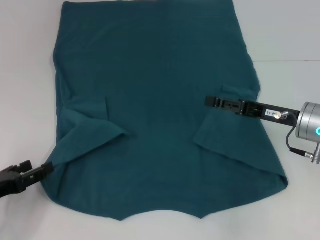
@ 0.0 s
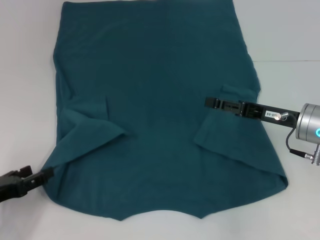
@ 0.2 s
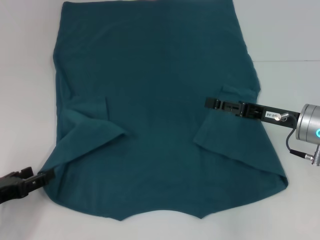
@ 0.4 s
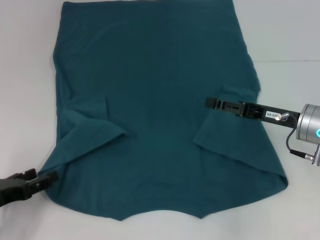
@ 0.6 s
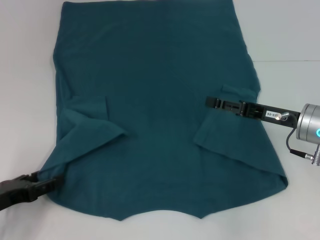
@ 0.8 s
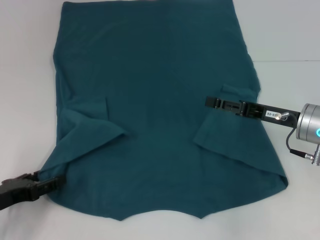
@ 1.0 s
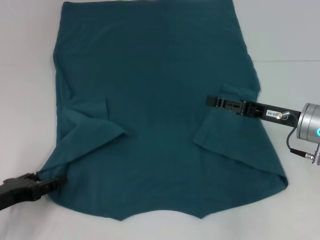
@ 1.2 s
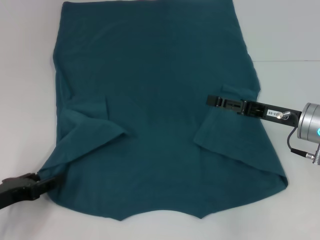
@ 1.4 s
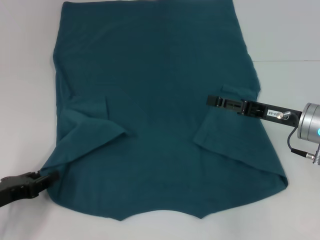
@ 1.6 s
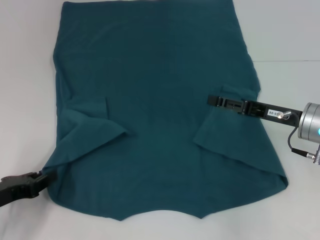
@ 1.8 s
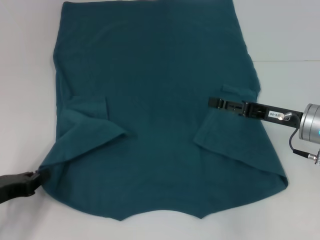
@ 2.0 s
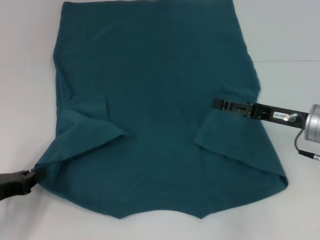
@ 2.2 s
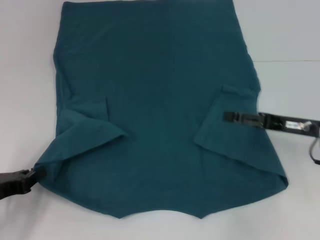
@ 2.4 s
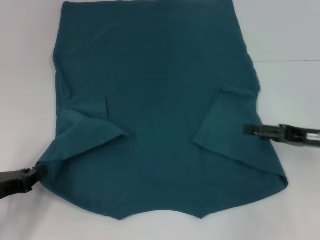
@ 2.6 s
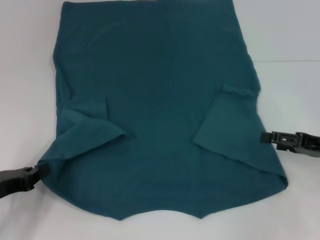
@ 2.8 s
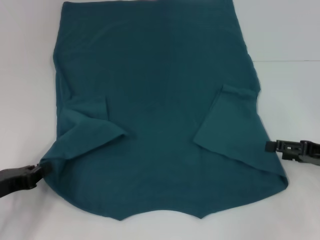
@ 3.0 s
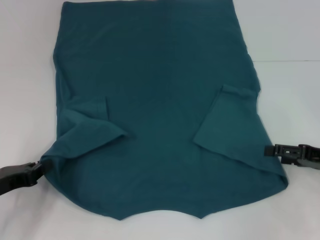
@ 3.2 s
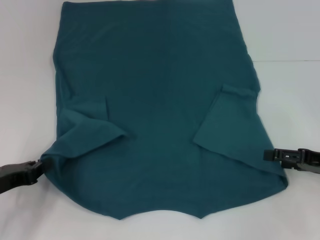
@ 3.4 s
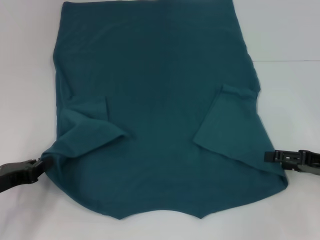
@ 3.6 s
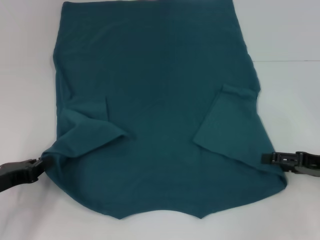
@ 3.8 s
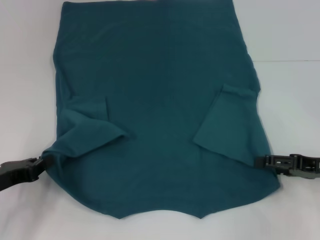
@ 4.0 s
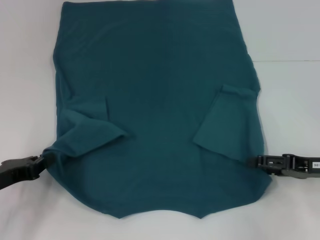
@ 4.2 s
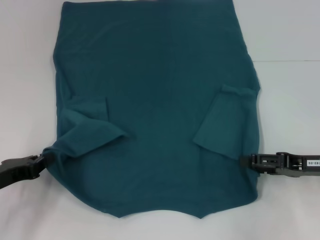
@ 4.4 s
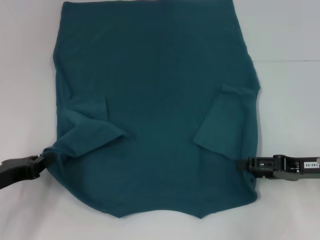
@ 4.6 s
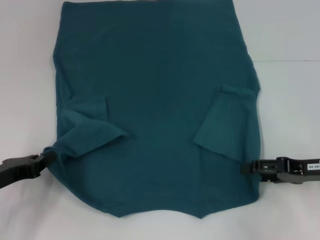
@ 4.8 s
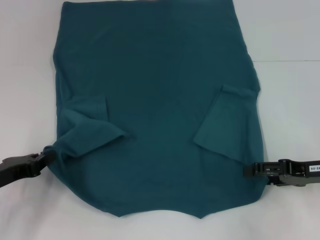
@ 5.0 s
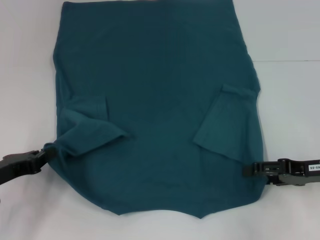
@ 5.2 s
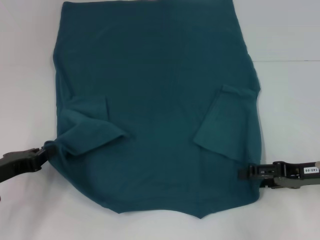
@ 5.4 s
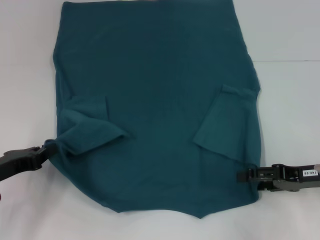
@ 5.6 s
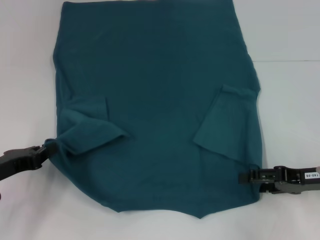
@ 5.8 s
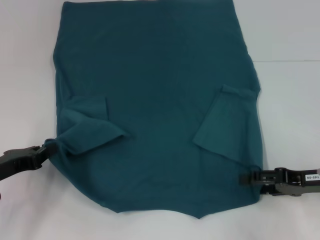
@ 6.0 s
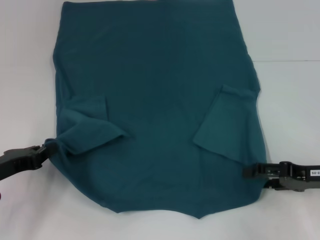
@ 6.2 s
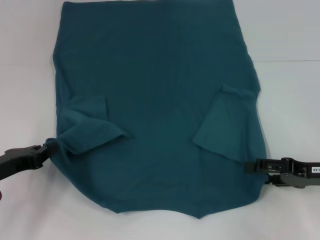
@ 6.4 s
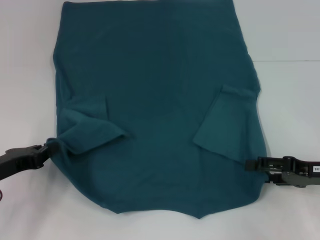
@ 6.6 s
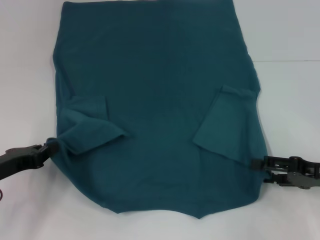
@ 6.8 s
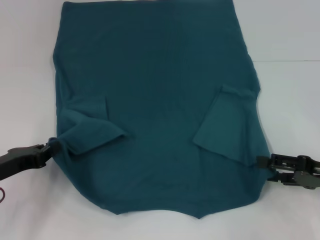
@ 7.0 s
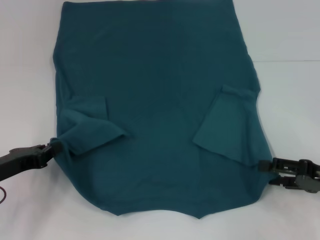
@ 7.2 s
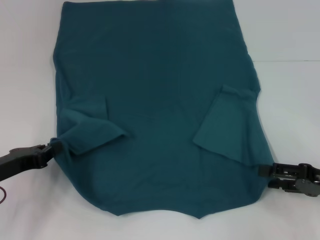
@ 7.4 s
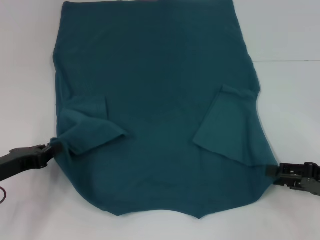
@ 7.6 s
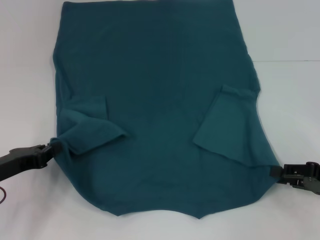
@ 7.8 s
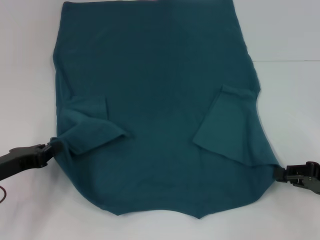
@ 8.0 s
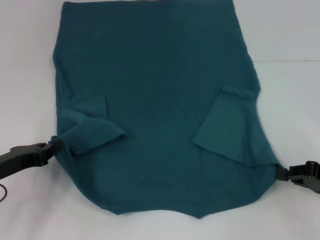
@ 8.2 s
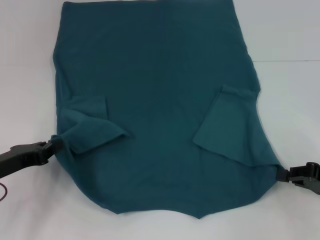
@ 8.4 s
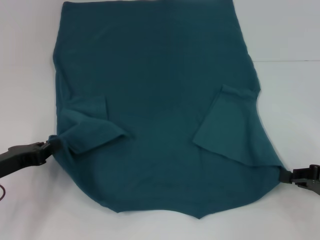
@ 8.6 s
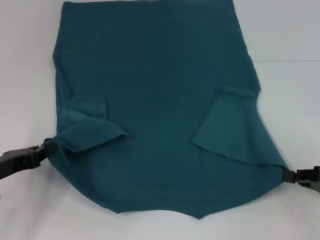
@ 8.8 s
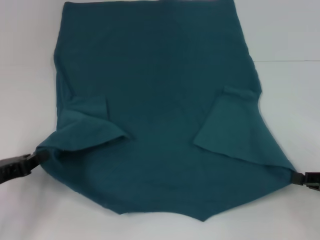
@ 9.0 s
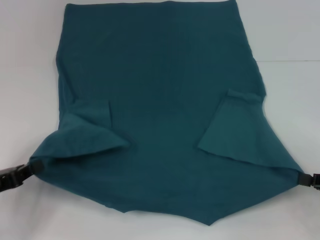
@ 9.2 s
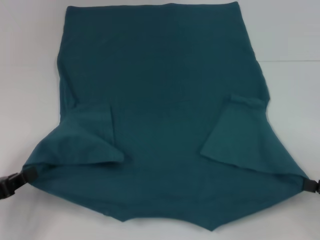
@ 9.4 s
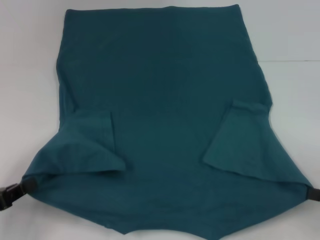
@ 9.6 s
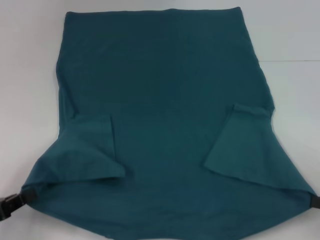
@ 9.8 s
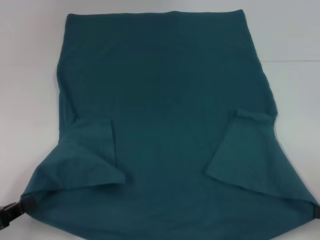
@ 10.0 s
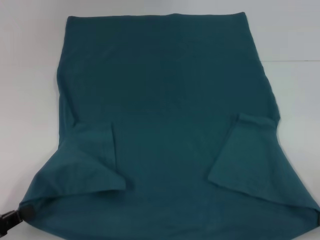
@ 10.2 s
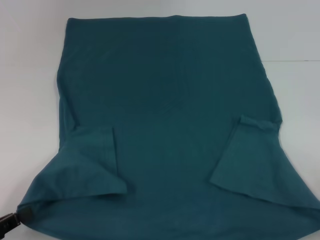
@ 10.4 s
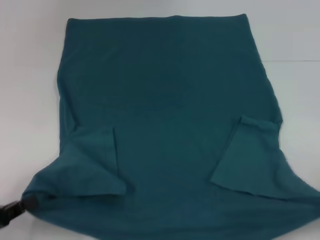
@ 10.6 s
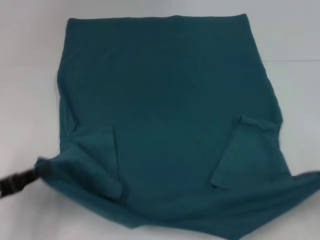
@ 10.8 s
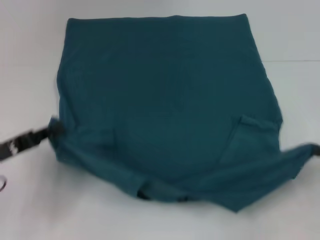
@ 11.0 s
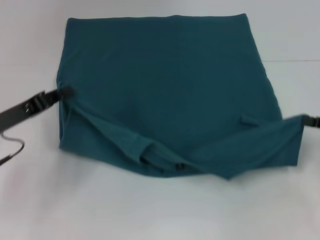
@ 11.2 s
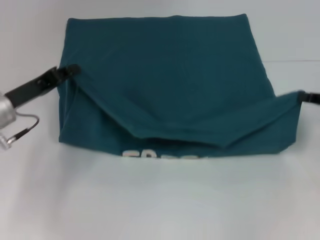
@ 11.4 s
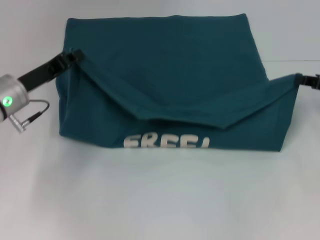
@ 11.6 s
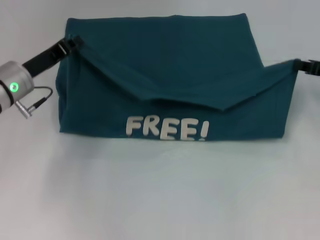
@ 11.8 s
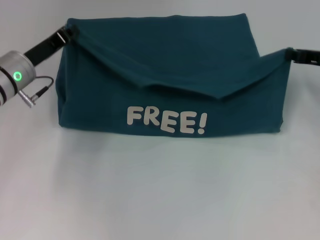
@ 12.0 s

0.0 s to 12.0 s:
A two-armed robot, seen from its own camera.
Step, 0.0 to 2.0 s: Grab the bottom left corner with your left hand.
Step, 2.2 to 8.2 s: Grab the bottom right corner with your right hand.
0.0 to 1.6 s: The grippers move only a little.
1.6 to 3.0 s: The right gripper is displaced to the right by roughly 10 cm. Meanwhile the left gripper closes up.
3.0 to 7.6 s: The grippers move only a little.
7.6 to 9.0 s: The right gripper closes up.
9.0 to 10.4 s: Both grippers travel together backward, some 10 cm.
10.4 to 12.0 s: The two grippers go roughly 25 cm forward.

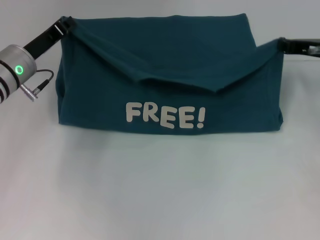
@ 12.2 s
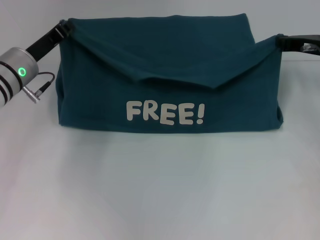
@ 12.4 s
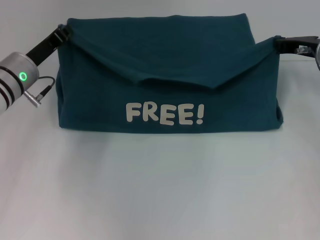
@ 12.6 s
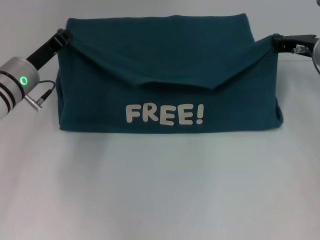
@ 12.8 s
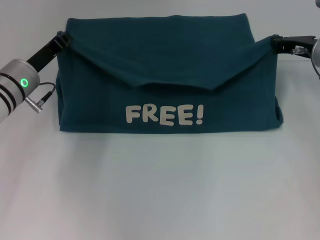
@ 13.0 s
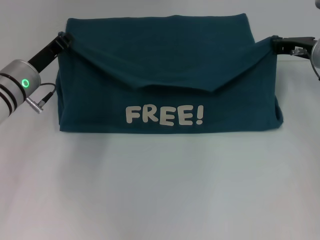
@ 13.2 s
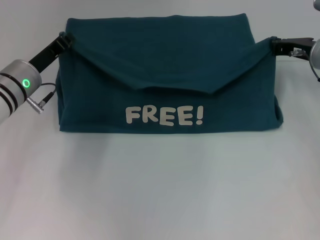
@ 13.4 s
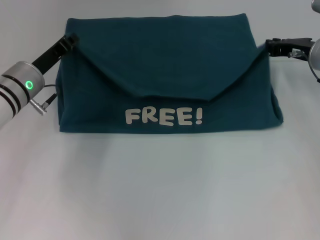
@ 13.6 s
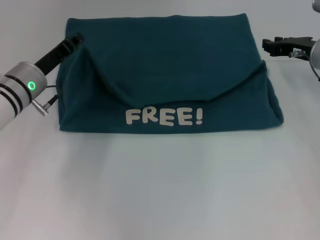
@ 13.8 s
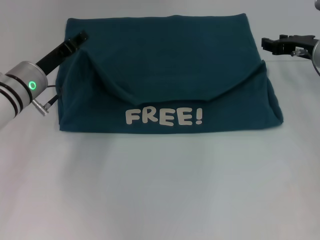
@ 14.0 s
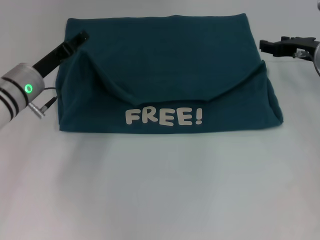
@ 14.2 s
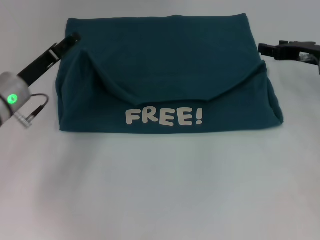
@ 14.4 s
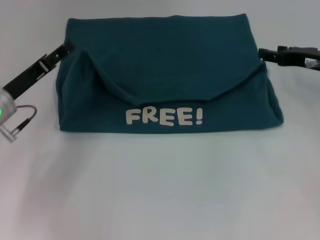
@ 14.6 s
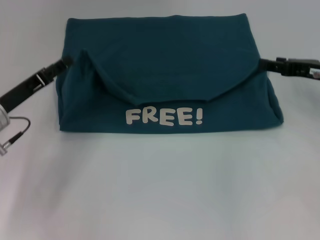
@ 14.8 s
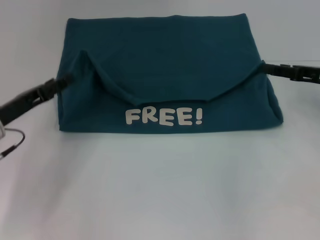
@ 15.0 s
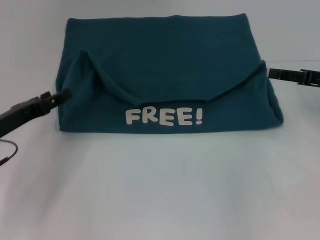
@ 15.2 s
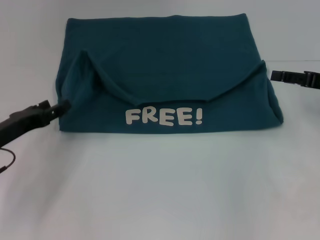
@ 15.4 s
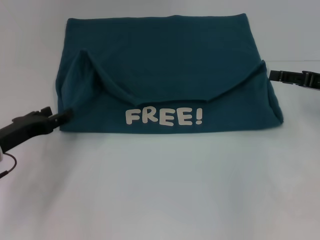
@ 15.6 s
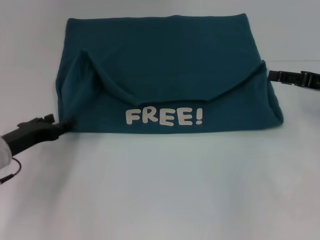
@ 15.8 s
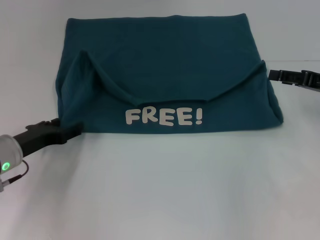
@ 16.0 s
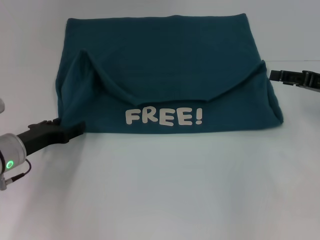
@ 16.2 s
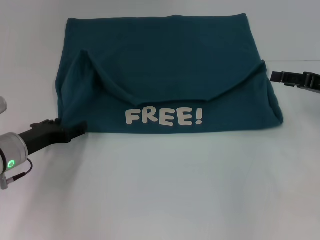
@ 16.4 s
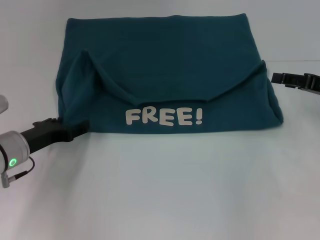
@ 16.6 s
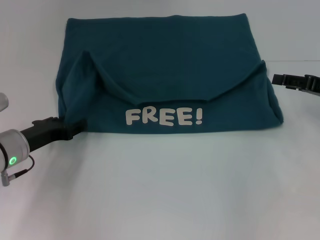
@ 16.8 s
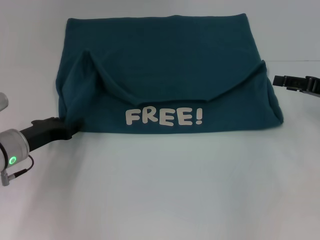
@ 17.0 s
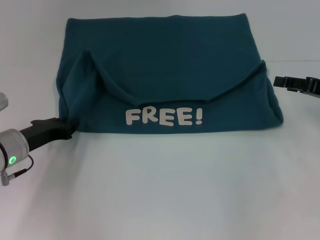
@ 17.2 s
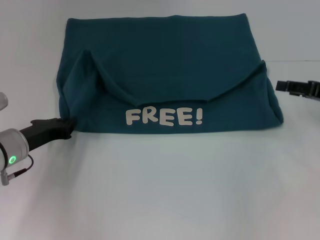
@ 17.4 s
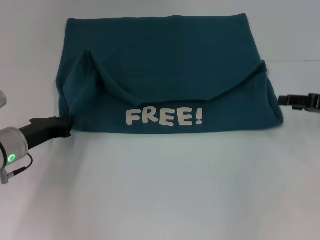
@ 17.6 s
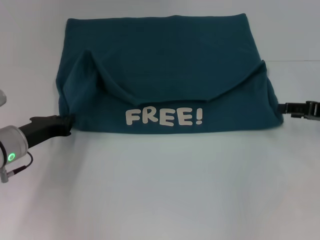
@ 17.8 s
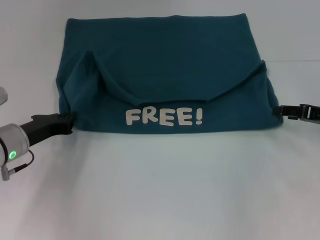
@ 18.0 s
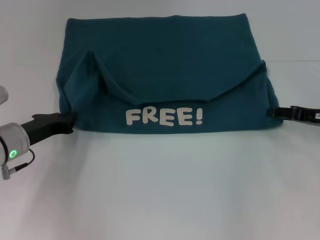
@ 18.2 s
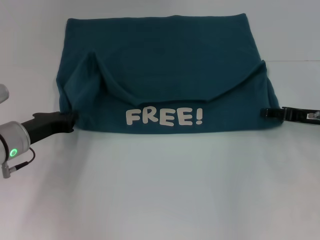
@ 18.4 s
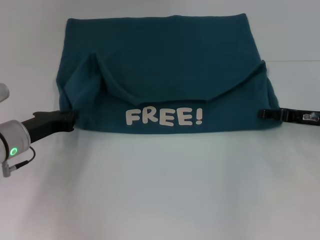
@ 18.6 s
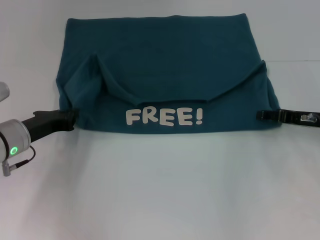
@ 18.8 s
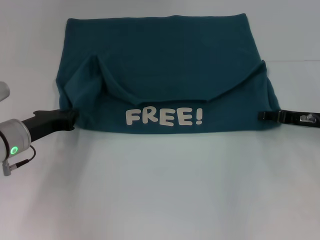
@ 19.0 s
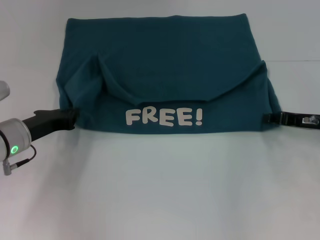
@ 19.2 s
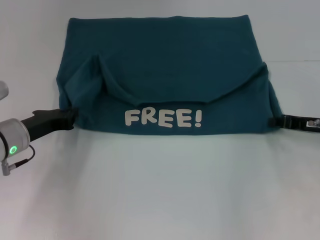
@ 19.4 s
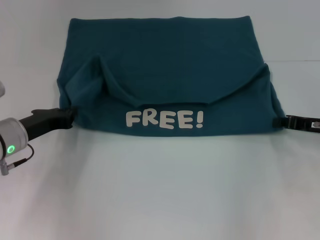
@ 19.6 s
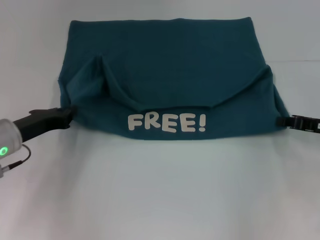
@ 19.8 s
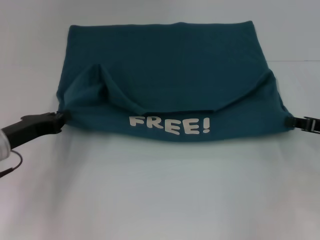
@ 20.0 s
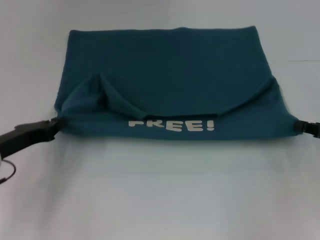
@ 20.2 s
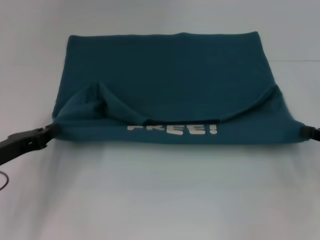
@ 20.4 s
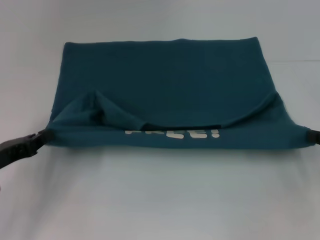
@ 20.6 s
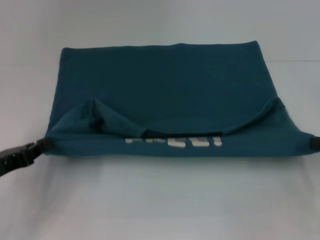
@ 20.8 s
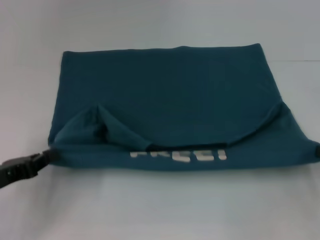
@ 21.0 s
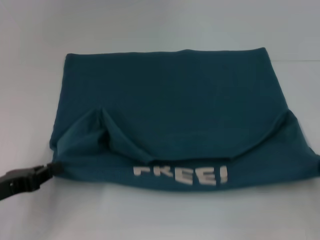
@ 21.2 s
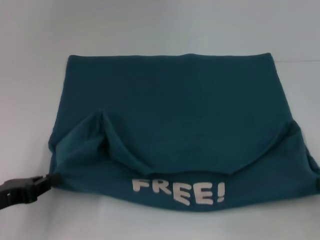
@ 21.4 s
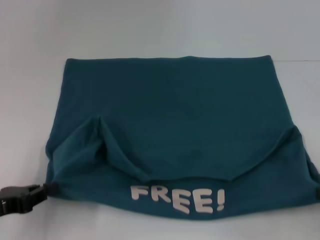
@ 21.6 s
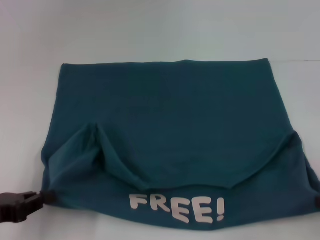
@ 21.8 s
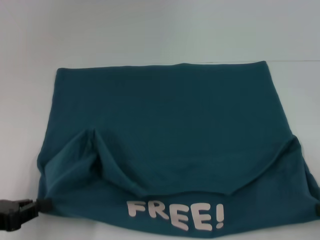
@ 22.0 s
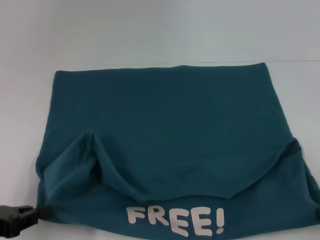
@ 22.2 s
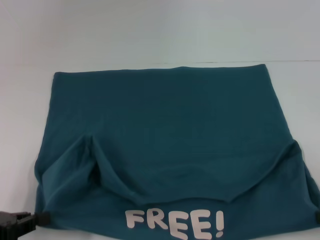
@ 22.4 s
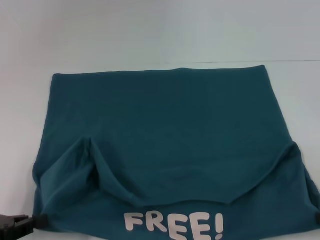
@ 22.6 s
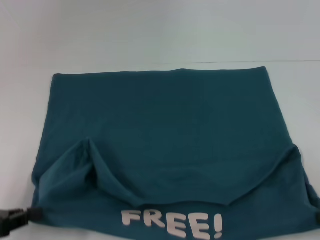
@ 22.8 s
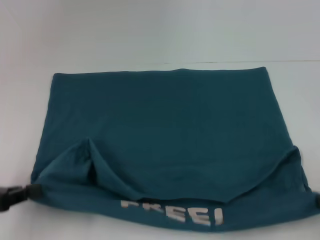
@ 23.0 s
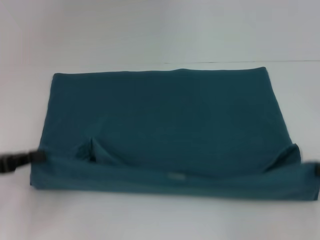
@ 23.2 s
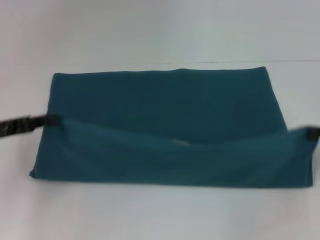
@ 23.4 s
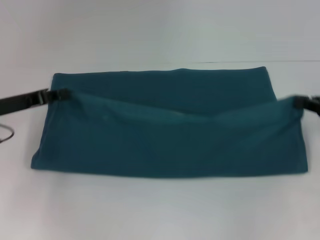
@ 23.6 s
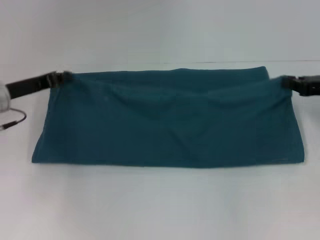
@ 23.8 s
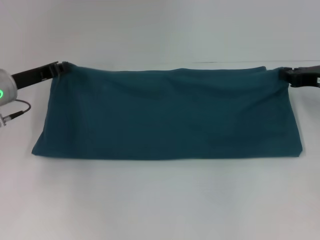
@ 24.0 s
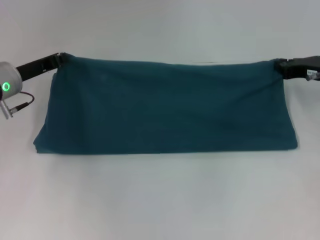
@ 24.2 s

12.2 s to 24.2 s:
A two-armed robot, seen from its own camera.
Step, 12.2 to 14.2 s: Fold the clothes to the left.
Step, 12.2 to 14.2 s: Fold the clothes to the right.
Step, 14.4 to 21.4 s: Pull the clothes with your left hand.
Step, 14.4 to 21.4 s: Pull the clothes with your right hand.
12.2 to 13.8 s: The grippers make only small movements.
13.8 to 15.2 s: The left gripper is displaced backward and to the left by approximately 10 cm, and opens up, while the right gripper heads backward and to the right, covering about 10 cm, and opens its fingers.
16.6 to 18.2 s: The left gripper closes up.
18.2 to 19.8 s: The right gripper closes its fingers.
19.8 to 21.2 s: The left gripper moves backward, approximately 10 cm. Meanwhile the right gripper moves backward and to the right, approximately 10 cm.
21.2 to 22.6 s: The left gripper shifts by some 5 cm.
22.6 to 24.2 s: The two grippers go approximately 20 cm forward.
